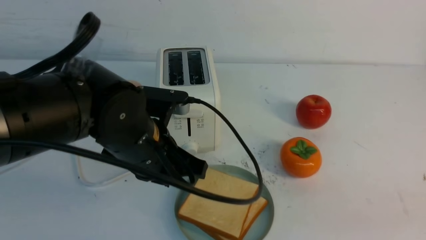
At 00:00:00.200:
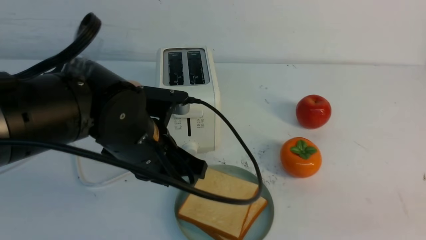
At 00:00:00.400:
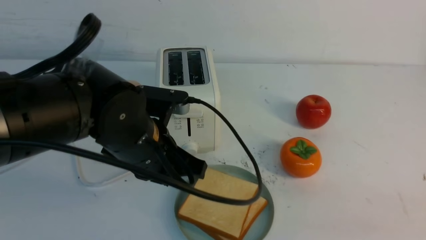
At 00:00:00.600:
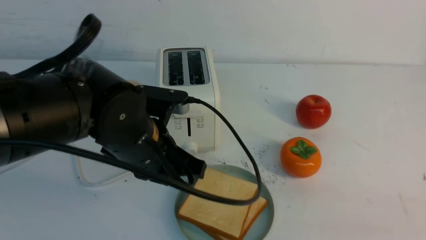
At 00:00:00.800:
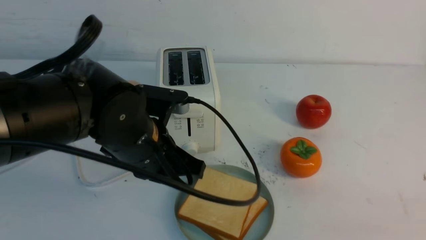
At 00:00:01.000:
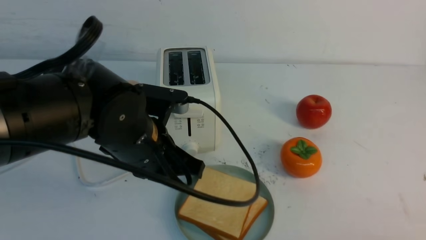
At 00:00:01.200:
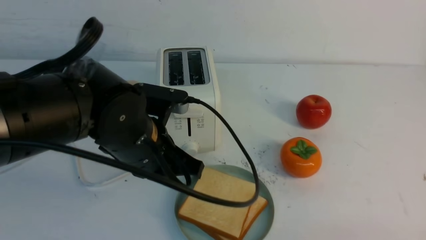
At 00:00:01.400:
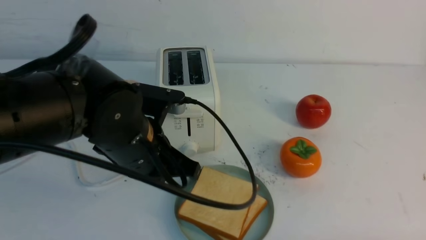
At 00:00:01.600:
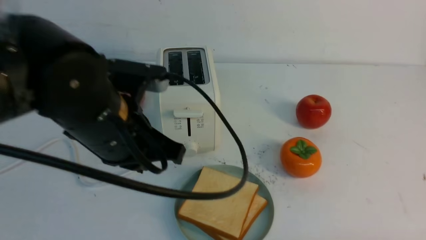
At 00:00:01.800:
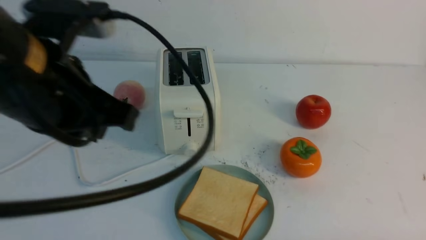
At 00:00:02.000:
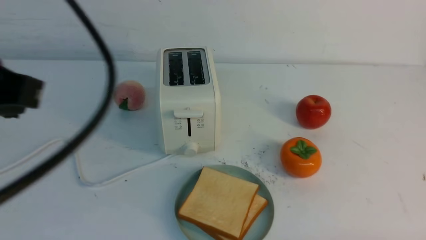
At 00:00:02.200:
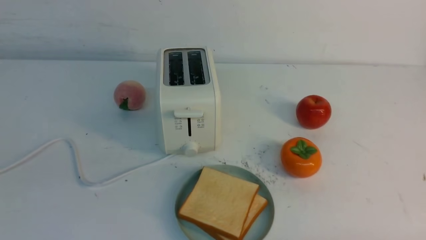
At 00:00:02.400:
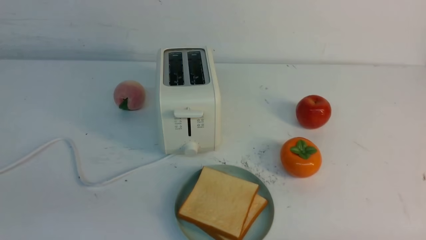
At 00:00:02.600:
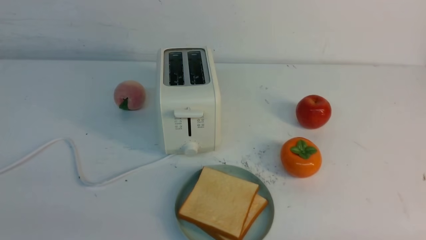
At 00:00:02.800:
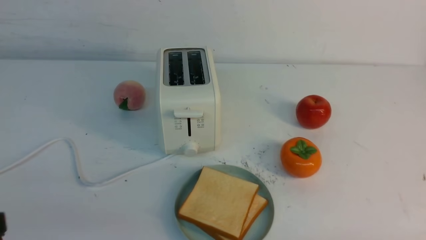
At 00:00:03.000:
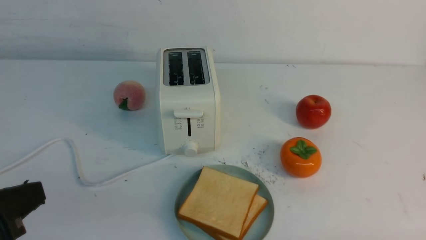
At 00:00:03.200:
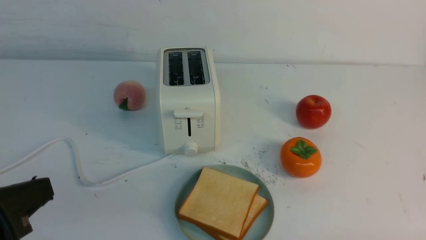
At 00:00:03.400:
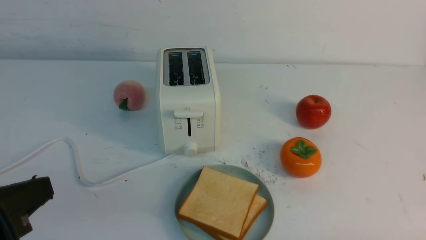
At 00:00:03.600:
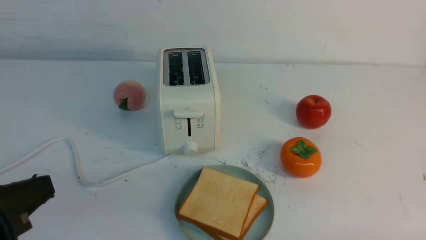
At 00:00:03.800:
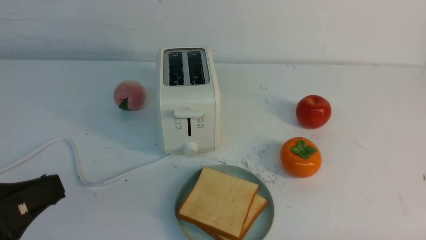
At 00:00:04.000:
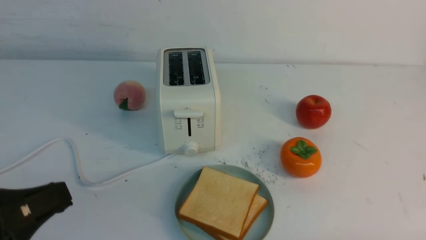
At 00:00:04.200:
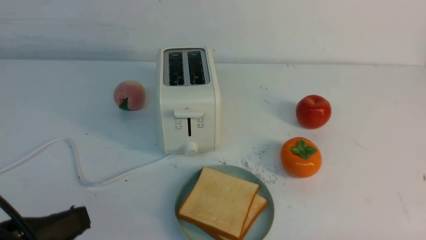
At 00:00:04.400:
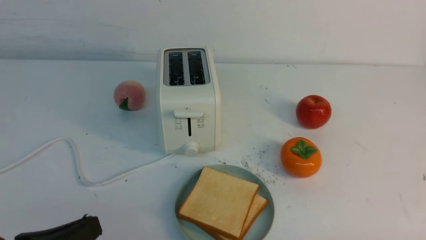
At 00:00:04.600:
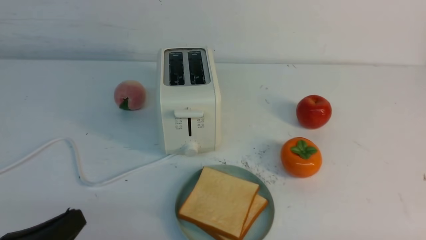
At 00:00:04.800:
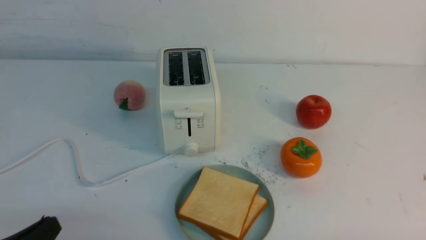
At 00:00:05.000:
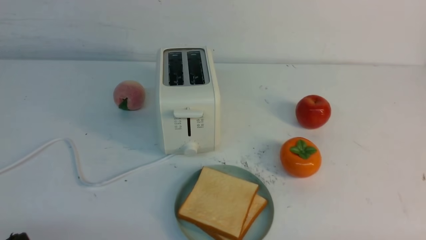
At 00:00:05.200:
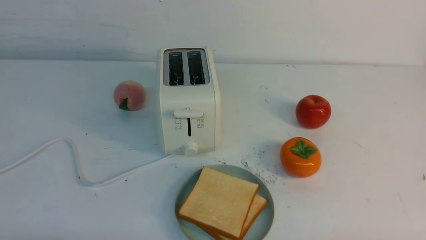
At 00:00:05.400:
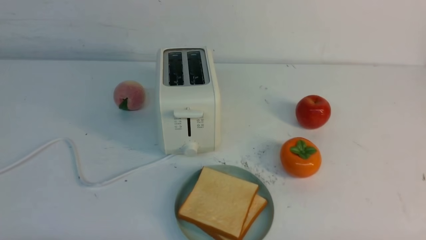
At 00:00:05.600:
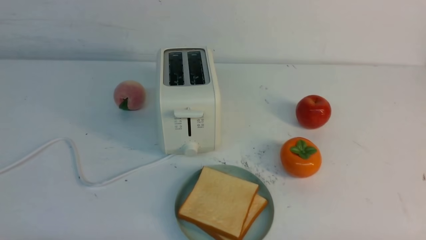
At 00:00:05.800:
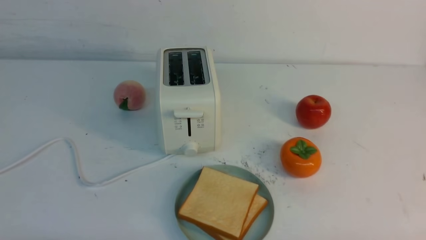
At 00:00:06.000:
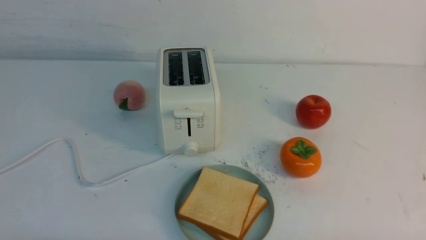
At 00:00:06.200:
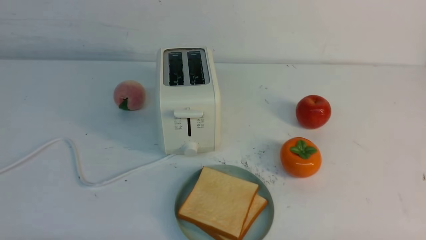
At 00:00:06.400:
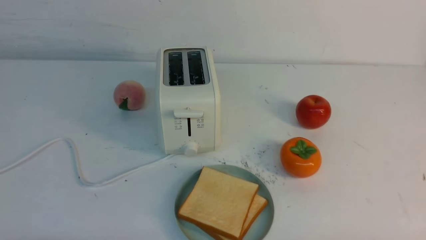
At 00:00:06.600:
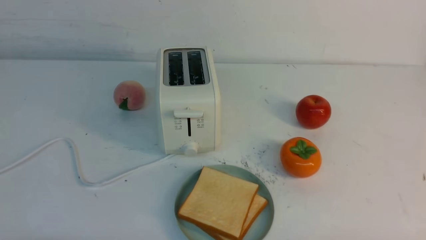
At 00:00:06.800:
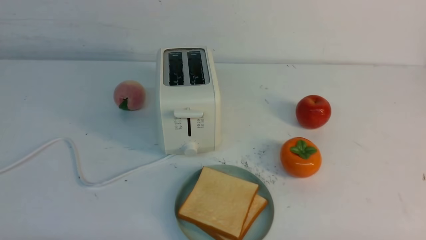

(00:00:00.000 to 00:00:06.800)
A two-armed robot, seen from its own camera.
Task of the whole recording: take toasted bread from bread machine on white table place on plate.
00:00:00.000 - 00:00:01.400: The right gripper is displaced downward by approximately 10 cm.
00:00:01.400 - 00:00:02.800: The left gripper heads backward and to the left, covering approximately 25 cm.
00:00:04.000 - 00:00:05.400: The left gripper goes roughly 15 cm downward.
00:00:05.400 - 00:00:06.800: Both grippers stay put.
